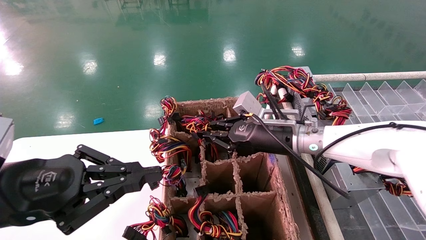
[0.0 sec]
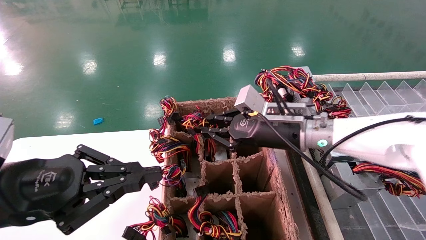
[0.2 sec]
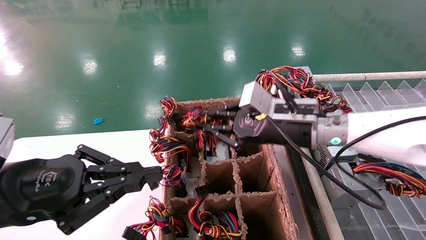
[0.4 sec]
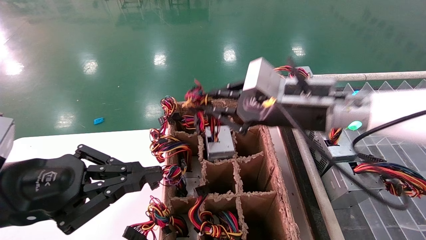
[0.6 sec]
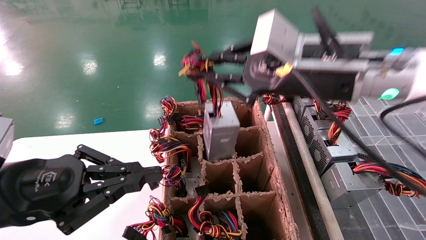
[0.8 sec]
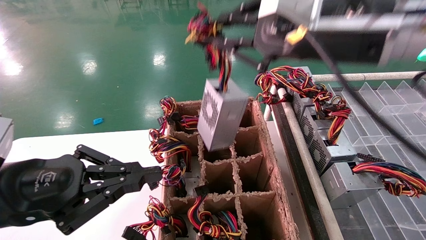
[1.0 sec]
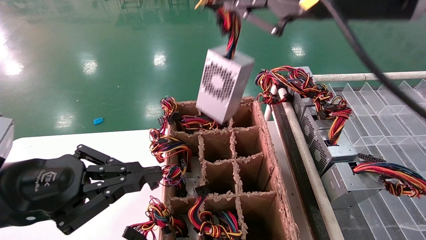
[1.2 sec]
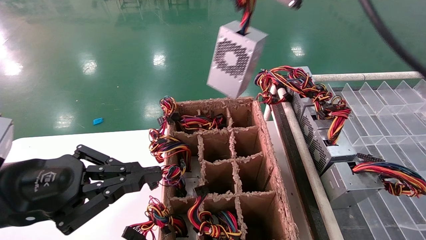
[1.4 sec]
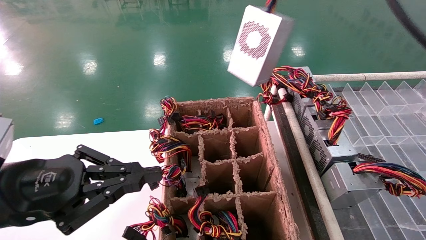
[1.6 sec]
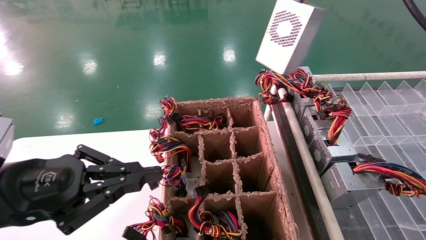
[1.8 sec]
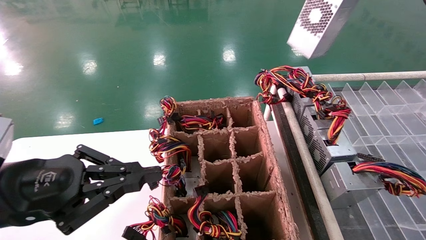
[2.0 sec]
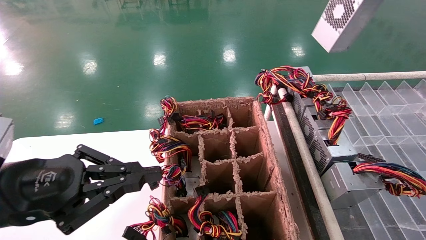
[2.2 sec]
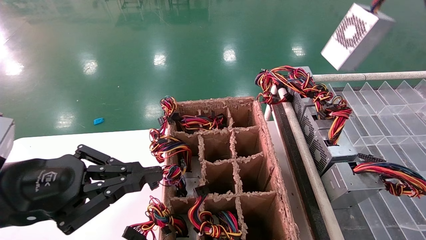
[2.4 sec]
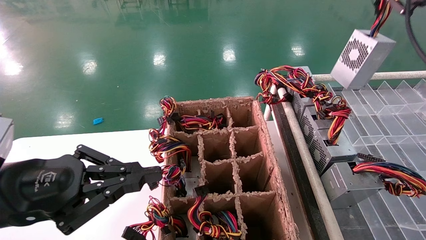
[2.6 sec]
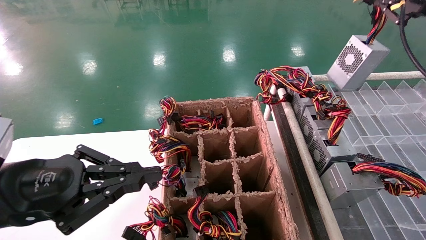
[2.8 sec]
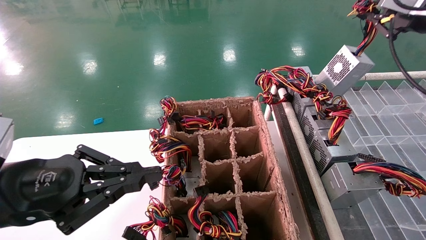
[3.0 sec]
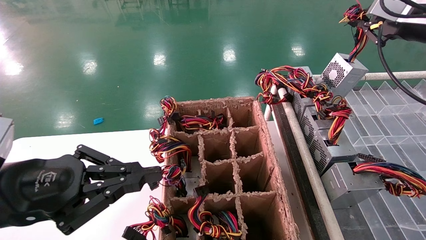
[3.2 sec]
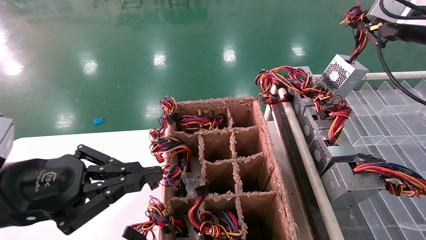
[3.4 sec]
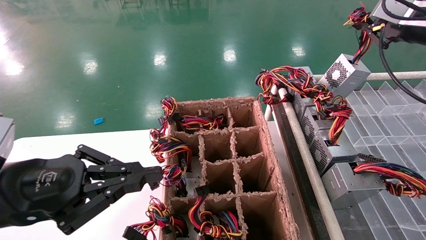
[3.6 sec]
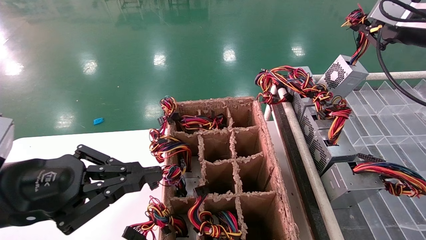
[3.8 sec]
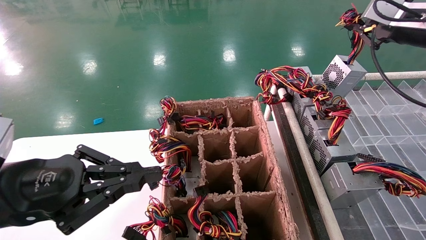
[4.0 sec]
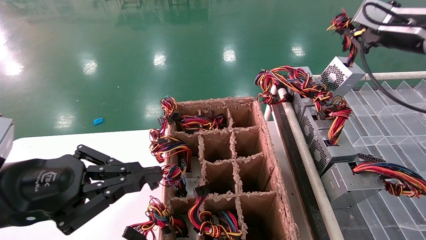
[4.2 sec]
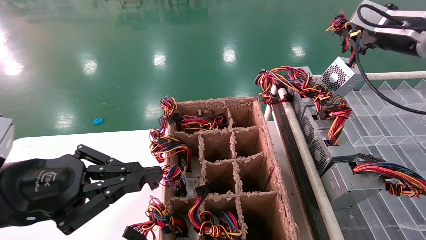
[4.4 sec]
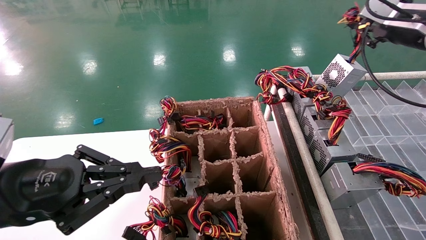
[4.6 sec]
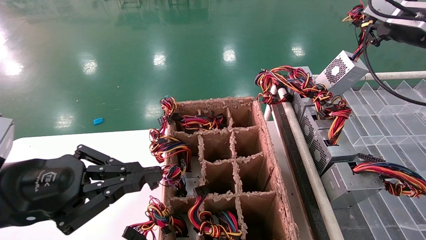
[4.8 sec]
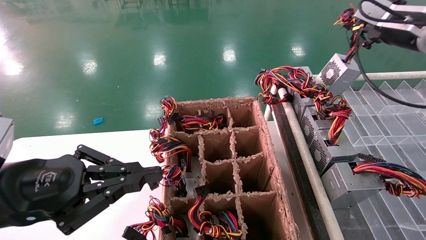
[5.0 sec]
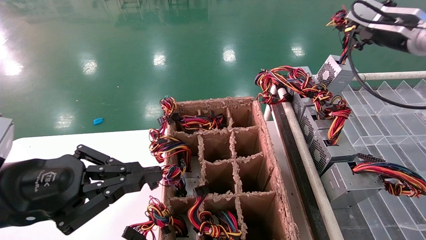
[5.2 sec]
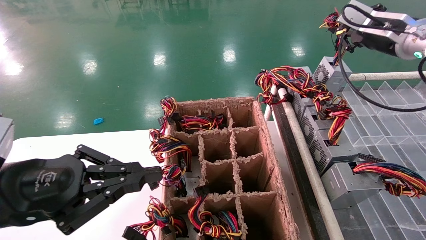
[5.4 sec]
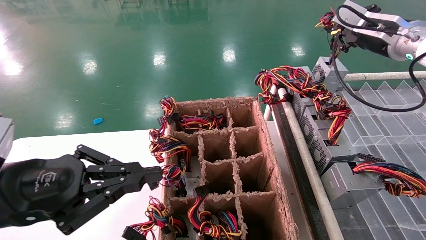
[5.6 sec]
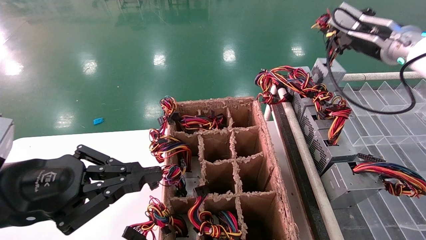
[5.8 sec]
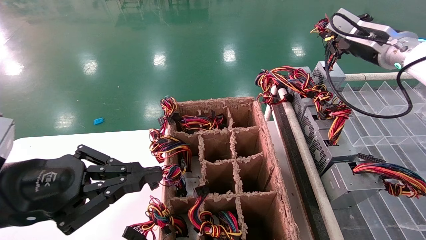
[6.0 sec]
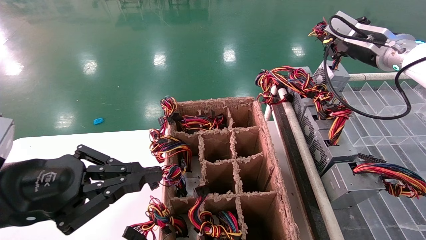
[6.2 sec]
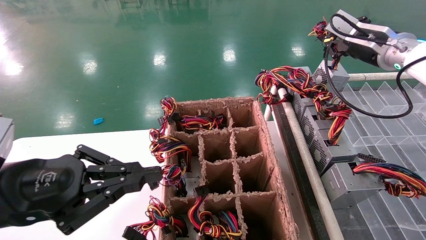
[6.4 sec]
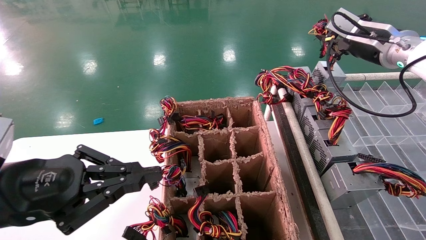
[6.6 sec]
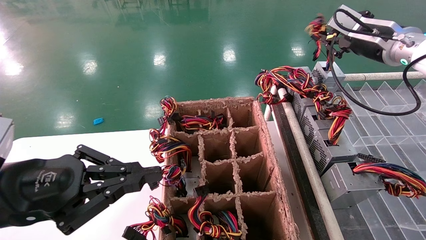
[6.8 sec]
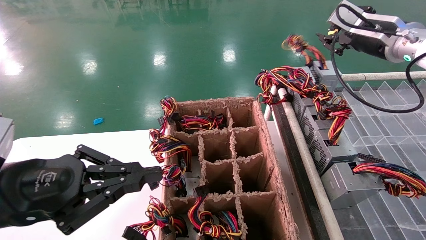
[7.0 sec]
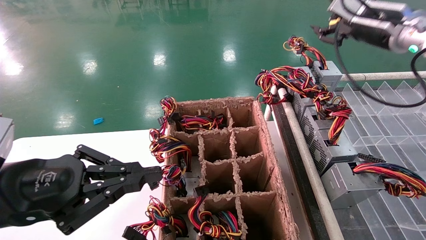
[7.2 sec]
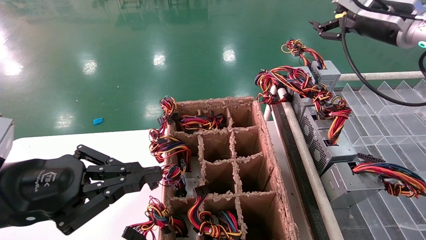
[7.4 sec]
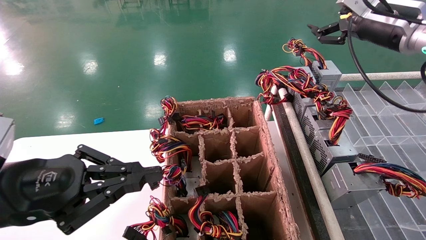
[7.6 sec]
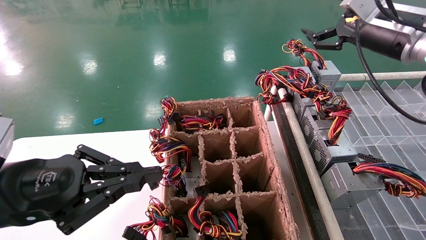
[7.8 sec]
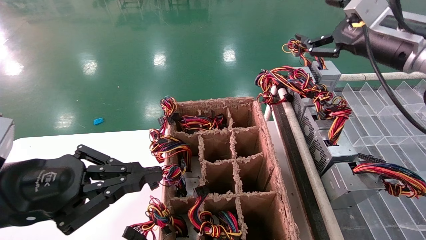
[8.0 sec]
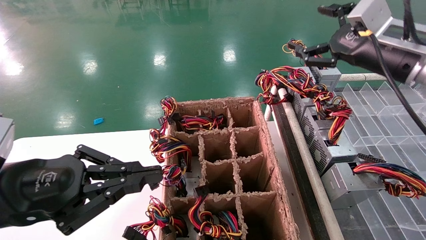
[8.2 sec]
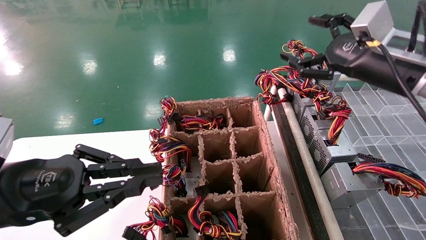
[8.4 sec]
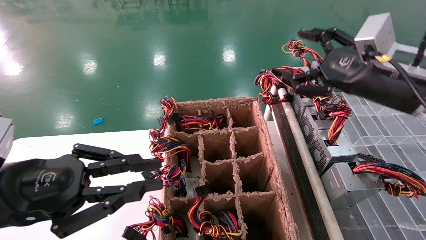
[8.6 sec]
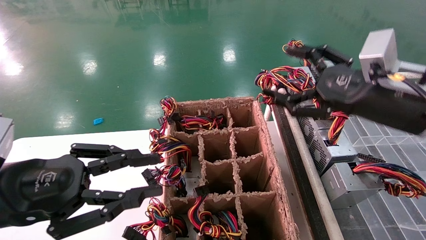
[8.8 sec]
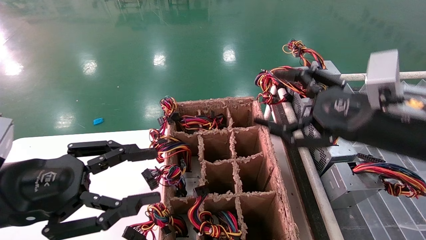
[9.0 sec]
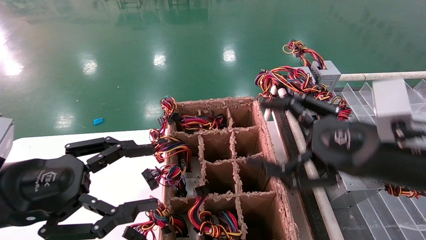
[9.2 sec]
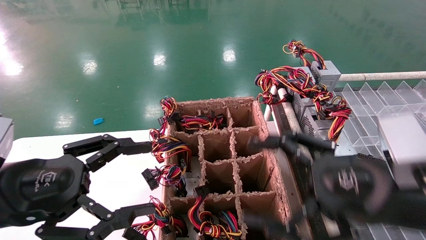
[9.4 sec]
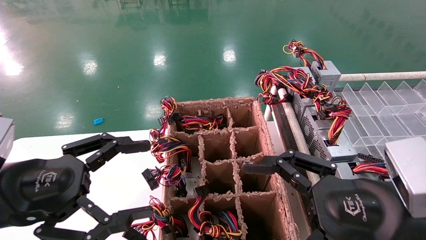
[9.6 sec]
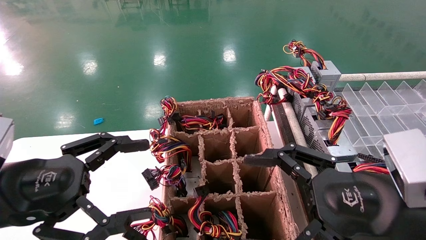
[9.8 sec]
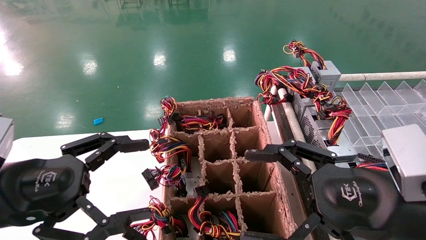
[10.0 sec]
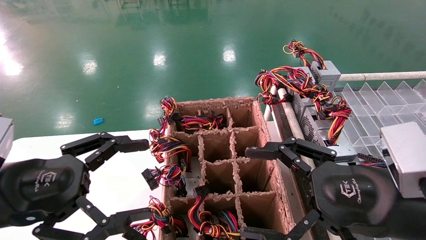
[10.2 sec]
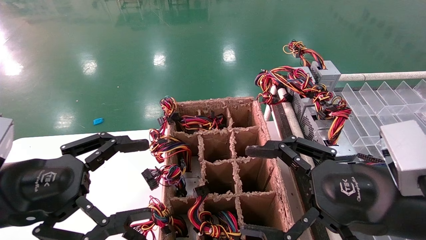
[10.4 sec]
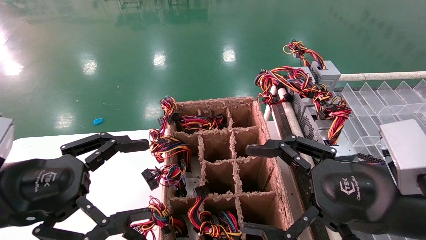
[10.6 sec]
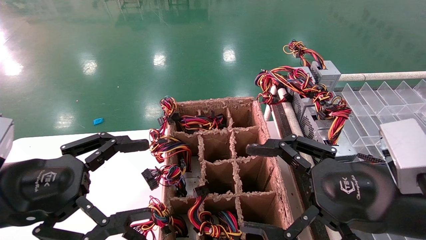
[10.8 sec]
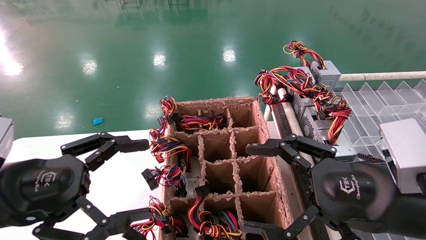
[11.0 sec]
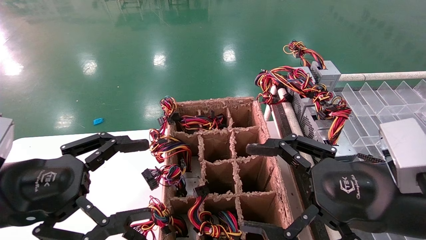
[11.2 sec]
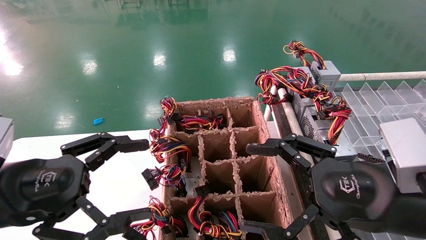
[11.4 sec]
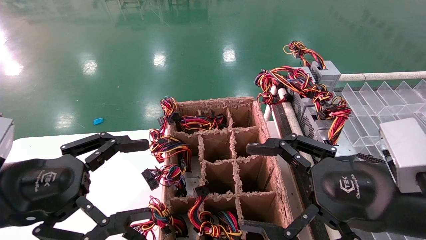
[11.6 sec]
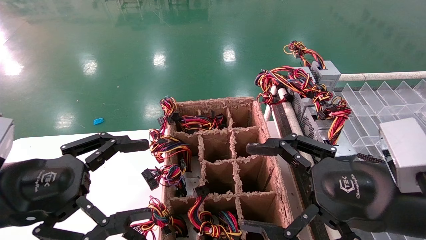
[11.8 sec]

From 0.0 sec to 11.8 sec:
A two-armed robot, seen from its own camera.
Step, from 0.0 sec to 7.2 sec: Place the main unit power supply in the designated area.
From 0.0 sec to 1.4 sec: The right gripper is displaced upward and backward by roughly 30 cm.
From 1.4 sec to 3.0 sec: The right gripper moves to the right and forward, roughly 25 cm.
From 3.0 sec to 4.4 sec: The right gripper shifts by some 5 cm.
From 4.4 sec to 6.0 sec: The right gripper ends up approximately 5 cm from where it was.
From 6.0 sec to 7.4 sec: The right gripper opens its fingers.
From 7.4 sec to 8.8 sec: The right gripper moves backward, downward and to the left, approximately 20 cm, and opens its fingers.
From 8.8 sec to 10.4 sec: The right gripper is displaced backward and downward by about 10 cm; the left gripper opens its fingers.
From 10.4 sec to 11.8 sec: Neither gripper changes place.
